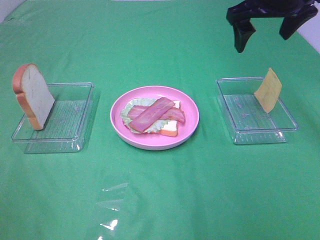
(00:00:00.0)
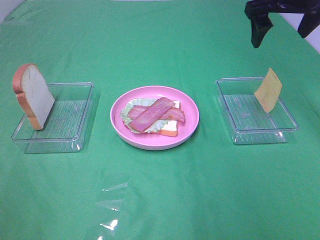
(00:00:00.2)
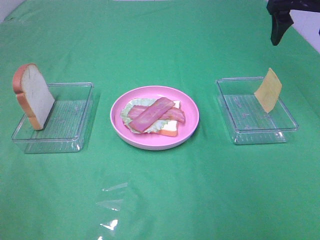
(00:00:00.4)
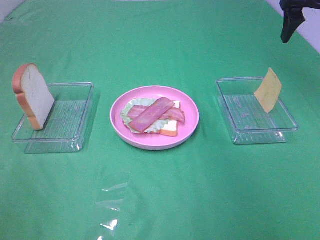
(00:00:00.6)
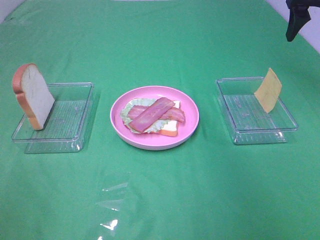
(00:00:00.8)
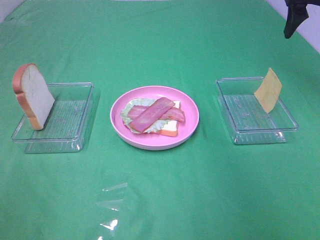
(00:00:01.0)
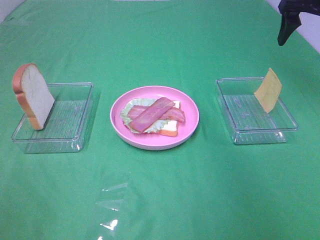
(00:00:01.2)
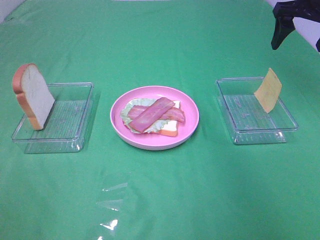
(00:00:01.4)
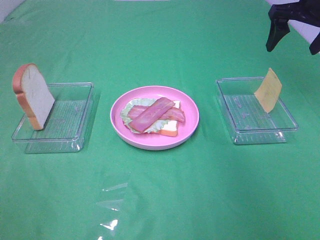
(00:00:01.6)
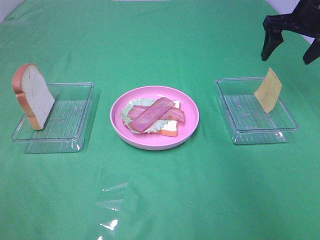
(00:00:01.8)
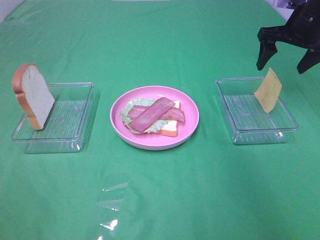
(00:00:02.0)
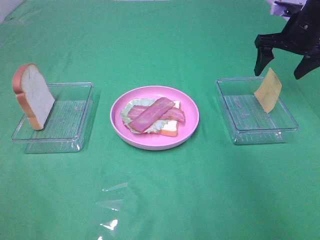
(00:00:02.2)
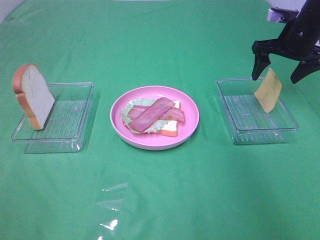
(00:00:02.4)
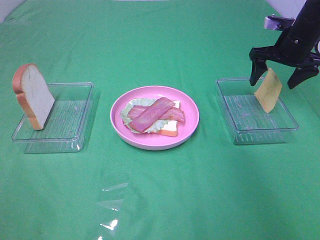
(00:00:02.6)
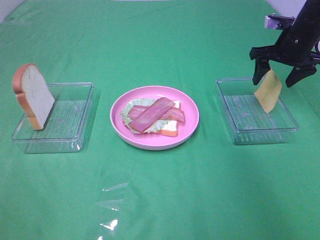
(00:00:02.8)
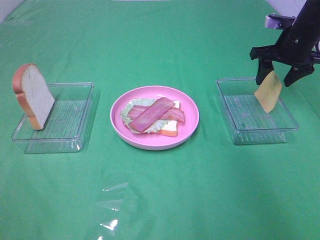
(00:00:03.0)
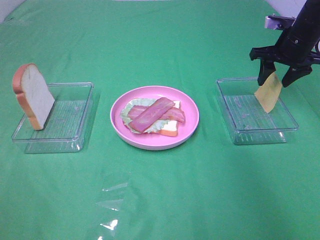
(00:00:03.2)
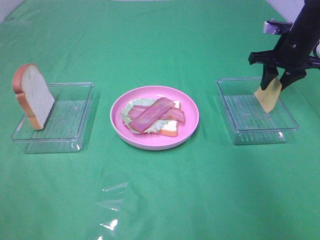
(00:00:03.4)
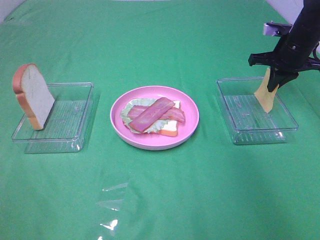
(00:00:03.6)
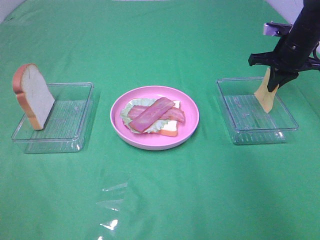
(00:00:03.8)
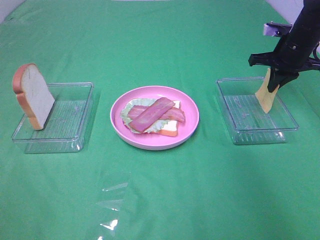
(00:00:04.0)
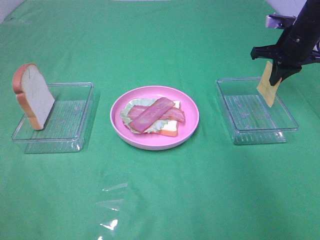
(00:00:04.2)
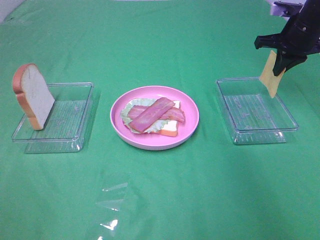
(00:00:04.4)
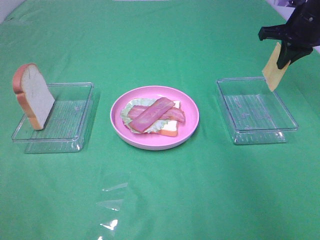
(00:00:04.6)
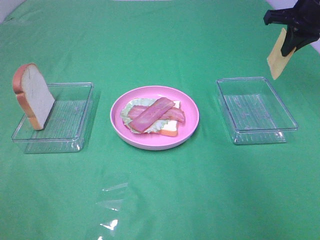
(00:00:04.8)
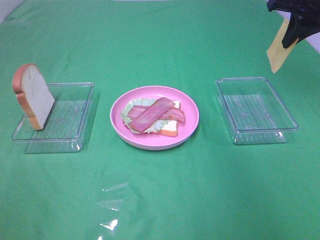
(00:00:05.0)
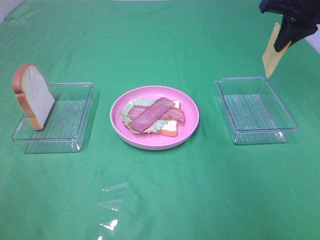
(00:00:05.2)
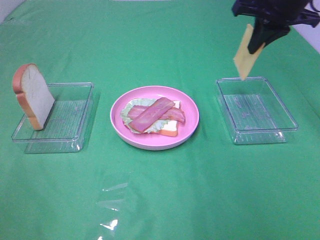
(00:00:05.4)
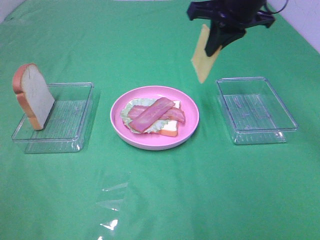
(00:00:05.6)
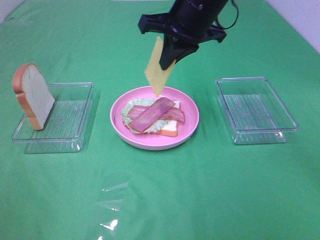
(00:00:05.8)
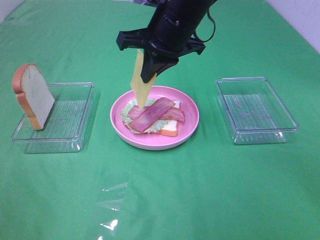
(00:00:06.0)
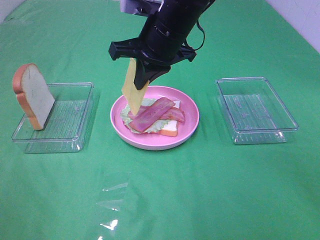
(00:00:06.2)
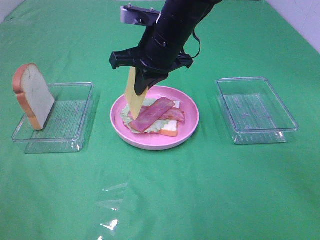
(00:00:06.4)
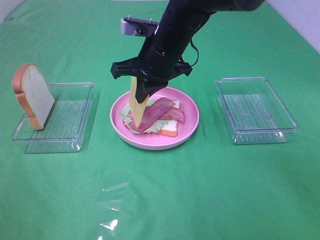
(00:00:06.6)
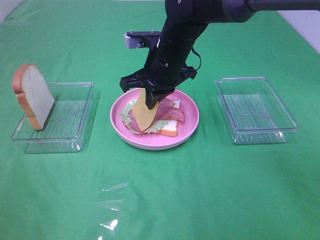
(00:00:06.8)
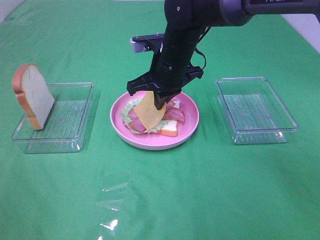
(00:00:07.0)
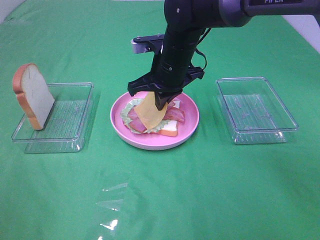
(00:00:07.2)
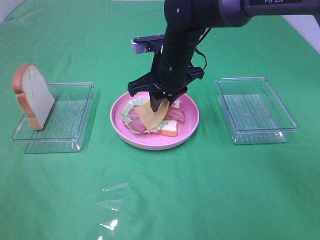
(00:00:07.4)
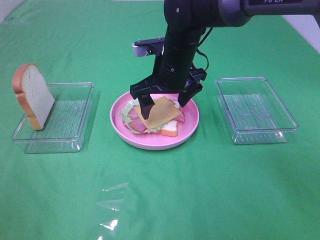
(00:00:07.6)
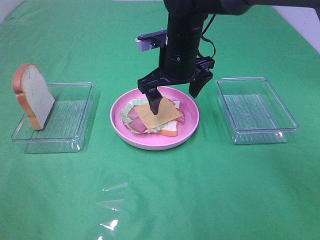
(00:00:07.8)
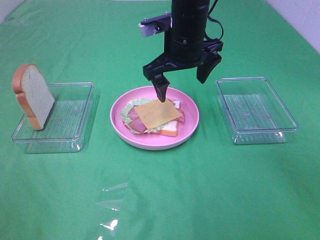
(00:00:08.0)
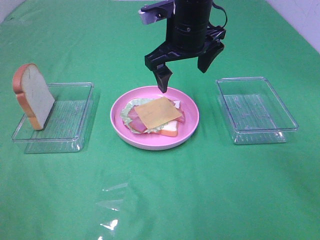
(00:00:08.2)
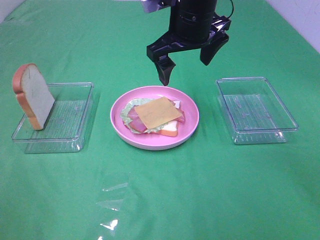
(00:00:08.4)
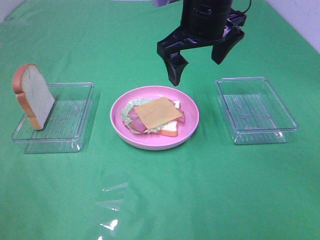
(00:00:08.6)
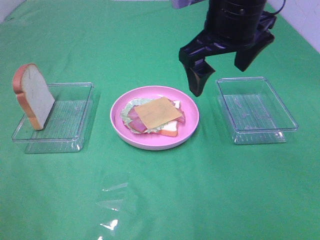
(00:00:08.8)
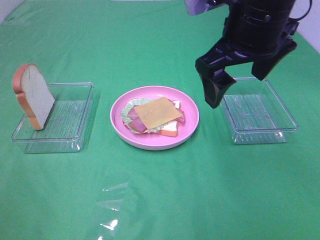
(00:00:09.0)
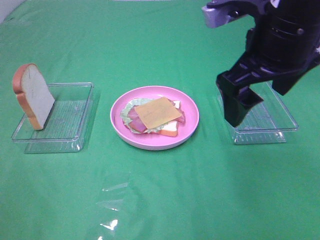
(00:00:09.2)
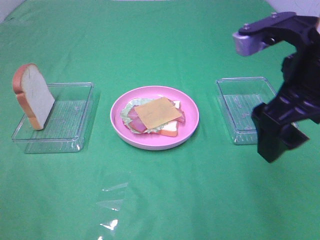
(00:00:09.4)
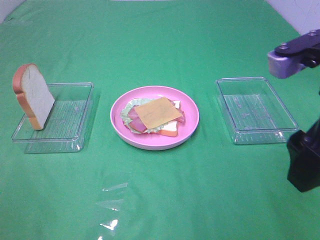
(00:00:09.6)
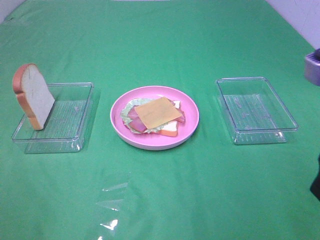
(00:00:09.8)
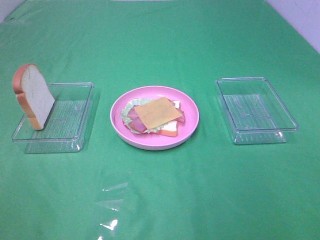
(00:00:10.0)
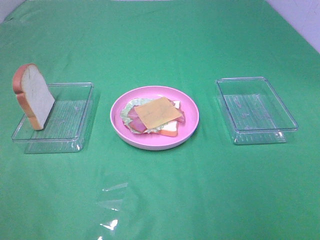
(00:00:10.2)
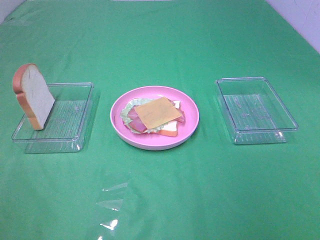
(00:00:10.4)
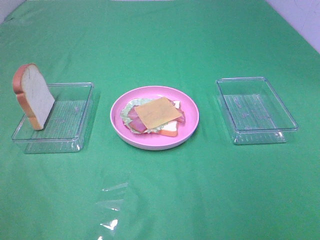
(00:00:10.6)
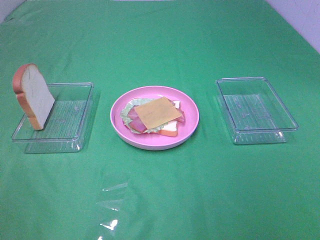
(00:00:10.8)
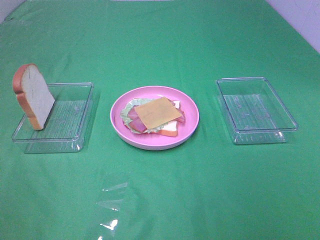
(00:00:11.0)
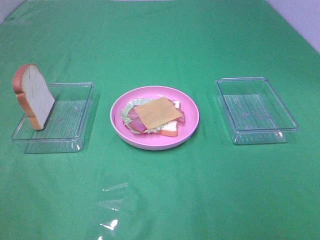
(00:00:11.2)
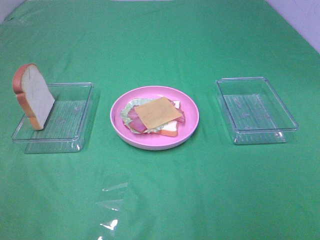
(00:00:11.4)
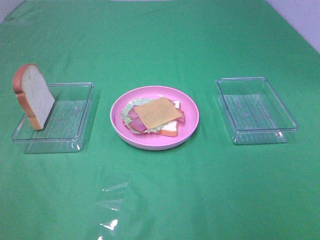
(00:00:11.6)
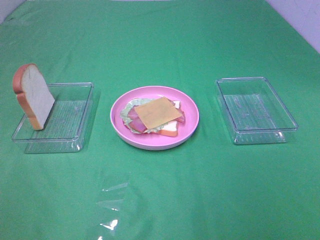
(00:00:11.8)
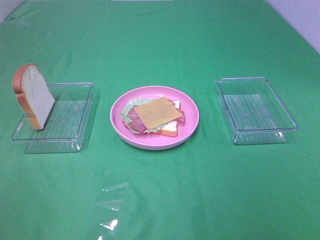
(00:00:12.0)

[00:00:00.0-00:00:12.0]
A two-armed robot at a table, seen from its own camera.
Task of the whole recording: Make sandwiches.
Step, 00:00:00.0 to 00:00:03.6: Right hand:grab the cheese slice.
Step, 00:00:03.8 to 00:00:07.8: Right hand:place the cheese slice on top of the bacon.
00:00:00.0 to 00:00:01.6: The right gripper moves to the right, about 10 cm.
00:00:01.6 to 00:00:03.0: The right gripper travels downward by about 10 cm.
00:00:03.0 to 00:00:04.4: The right gripper closes its fingers.
00:00:04.4 to 00:00:06.0: The right gripper goes some 25 cm to the left.
00:00:06.0 to 00:00:07.6: The right gripper travels downward by approximately 10 cm, and opens its fingers.
00:00:07.6 to 00:00:09.0: The right gripper is displaced upward, backward and to the right by some 20 cm.
00:00:09.0 to 00:00:10.4: The right gripper moves backward and to the right, roughly 30 cm.

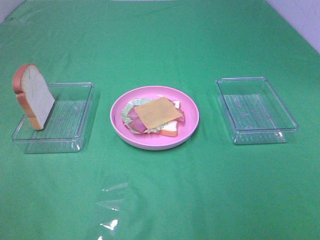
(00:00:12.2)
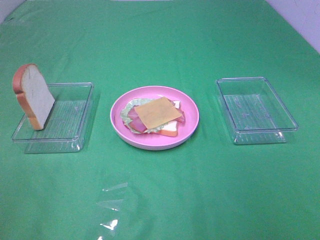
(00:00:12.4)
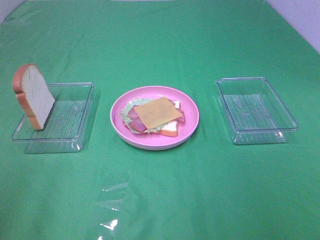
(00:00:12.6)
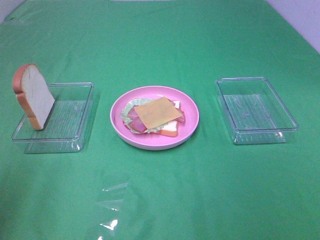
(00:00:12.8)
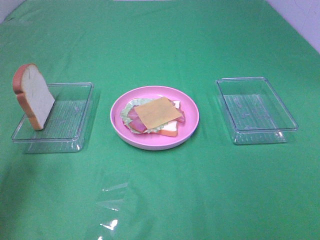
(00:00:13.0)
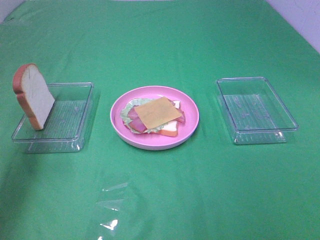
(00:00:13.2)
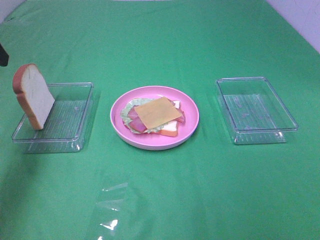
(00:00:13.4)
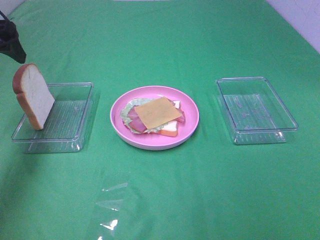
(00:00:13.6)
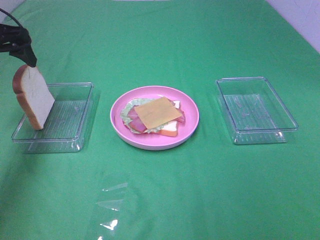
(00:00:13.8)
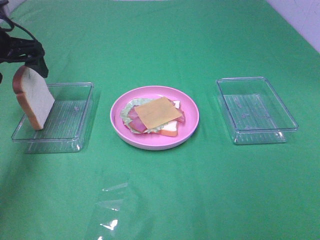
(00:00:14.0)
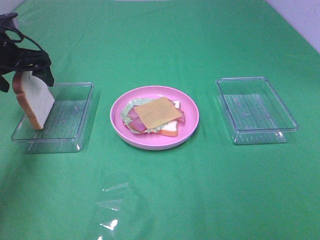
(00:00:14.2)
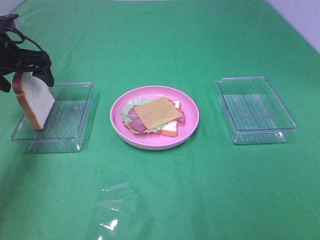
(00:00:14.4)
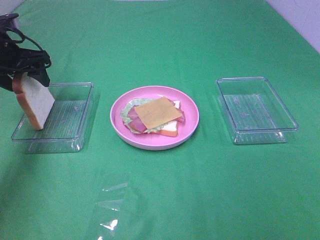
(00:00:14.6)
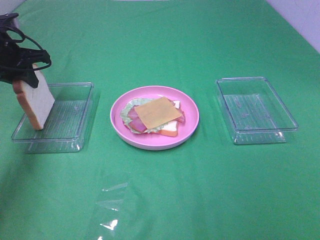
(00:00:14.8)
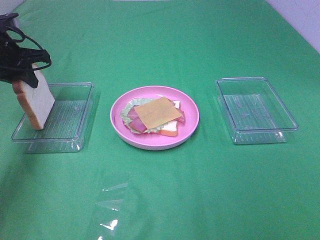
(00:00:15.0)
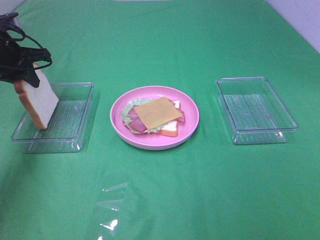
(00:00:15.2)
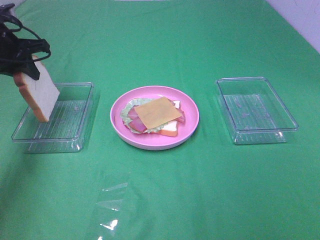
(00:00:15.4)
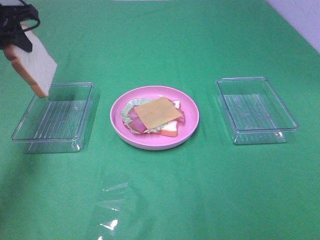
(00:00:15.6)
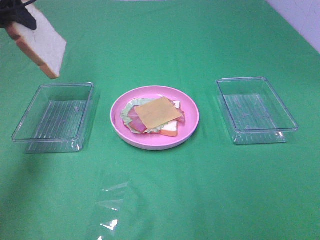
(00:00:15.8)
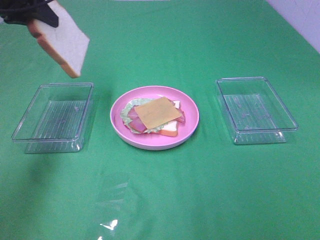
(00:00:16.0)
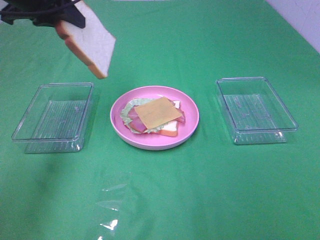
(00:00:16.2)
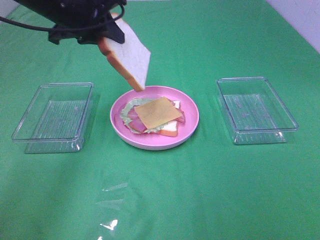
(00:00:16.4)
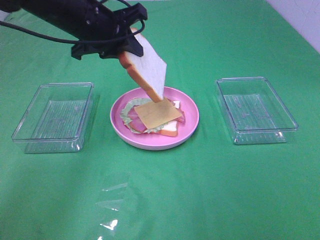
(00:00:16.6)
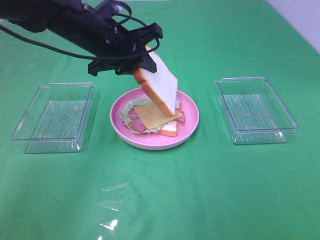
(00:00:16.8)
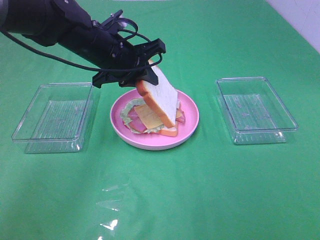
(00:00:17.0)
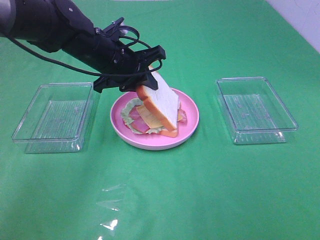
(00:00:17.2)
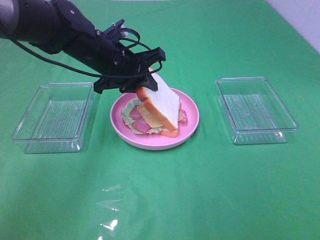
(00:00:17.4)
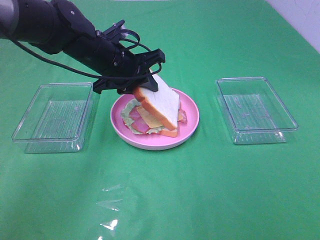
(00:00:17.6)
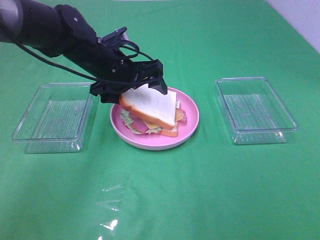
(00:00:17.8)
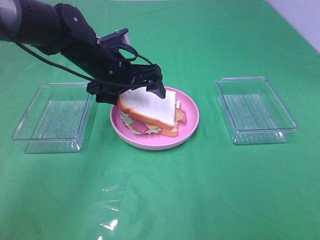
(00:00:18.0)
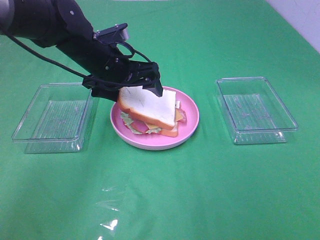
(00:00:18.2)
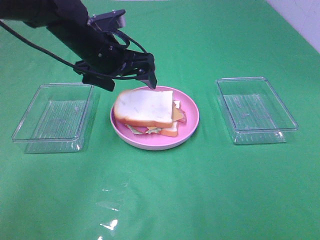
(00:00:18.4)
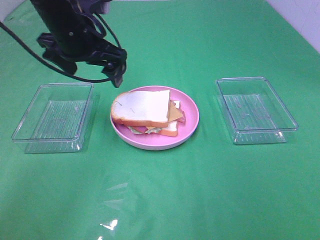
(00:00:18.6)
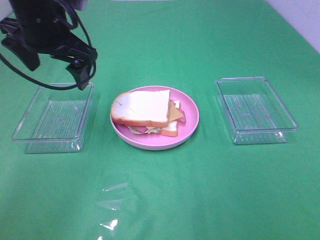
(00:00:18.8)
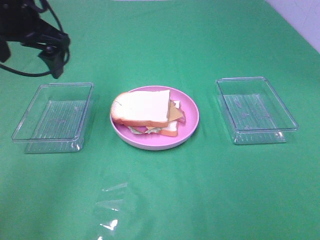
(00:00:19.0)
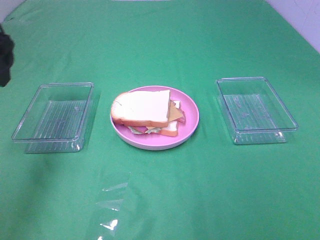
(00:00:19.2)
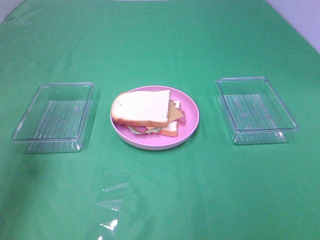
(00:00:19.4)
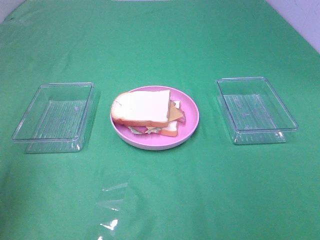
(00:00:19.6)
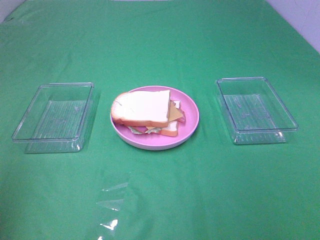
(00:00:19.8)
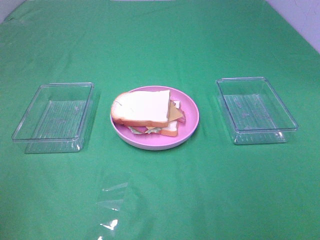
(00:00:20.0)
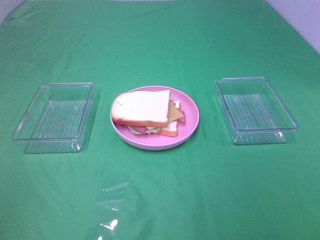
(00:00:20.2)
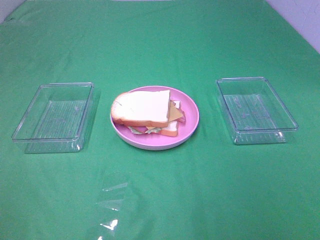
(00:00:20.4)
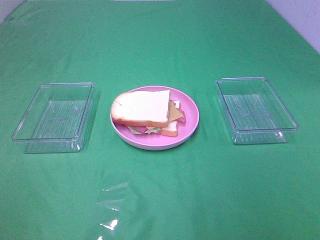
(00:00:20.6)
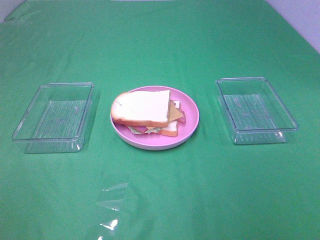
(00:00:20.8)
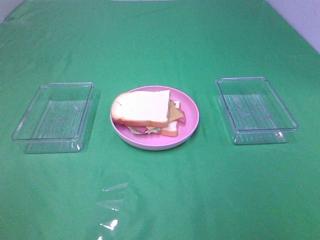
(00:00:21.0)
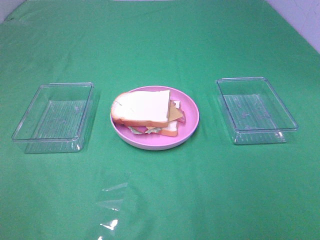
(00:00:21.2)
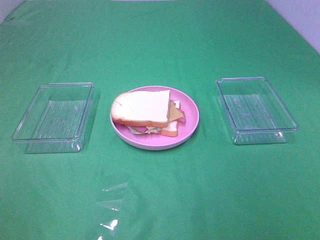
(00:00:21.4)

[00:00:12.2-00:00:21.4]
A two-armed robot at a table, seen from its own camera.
Task of the whole recording: Make sandwiches.
Step, 00:00:12.2 to 00:00:15.0: Left hand:grab the bread slice.
Step, 00:00:15.2 to 00:00:18.4: Left hand:place the bread slice on the cheese slice.
00:00:12.2 to 00:00:13.8: The left gripper shifts approximately 40 cm forward.
00:00:13.8 to 00:00:15.2: The left gripper moves downward, about 5 cm, and closes its fingers.
00:00:15.2 to 00:00:16.8: The left gripper travels to the right by approximately 20 cm.
00:00:16.8 to 00:00:18.4: The left gripper opens.
00:00:18.4 to 00:00:19.8: The left gripper travels backward, to the left and upward by approximately 40 cm.
